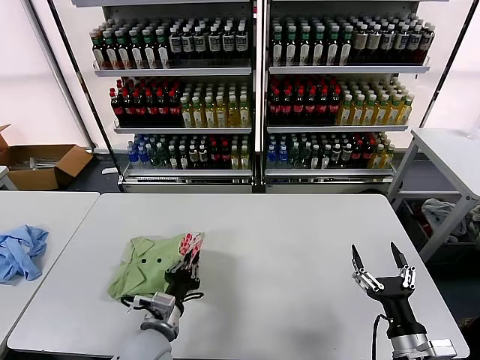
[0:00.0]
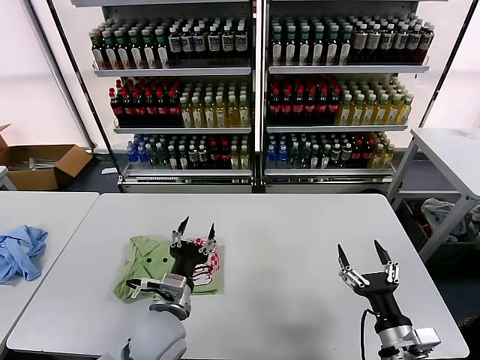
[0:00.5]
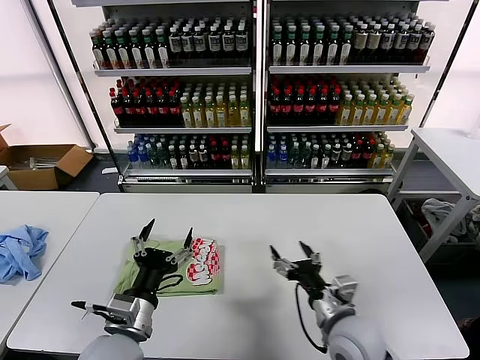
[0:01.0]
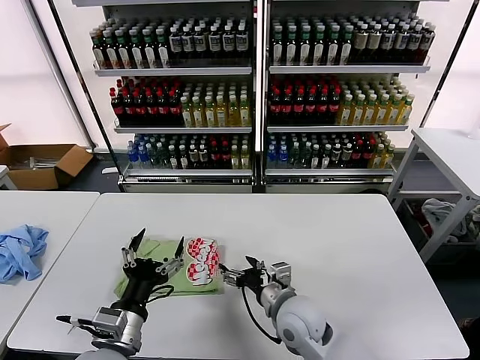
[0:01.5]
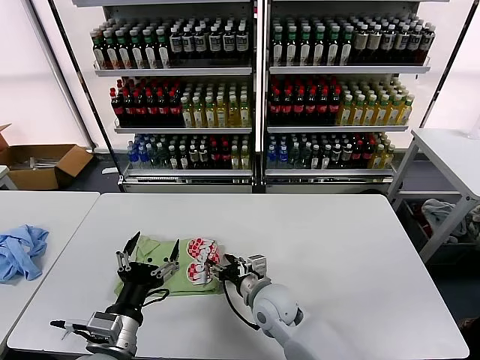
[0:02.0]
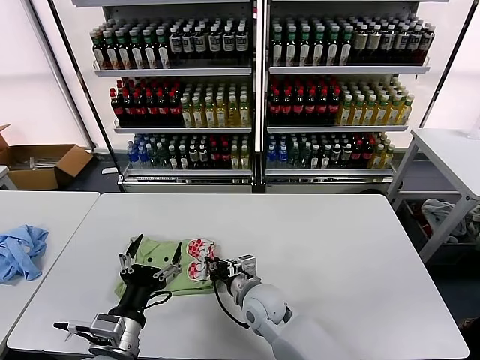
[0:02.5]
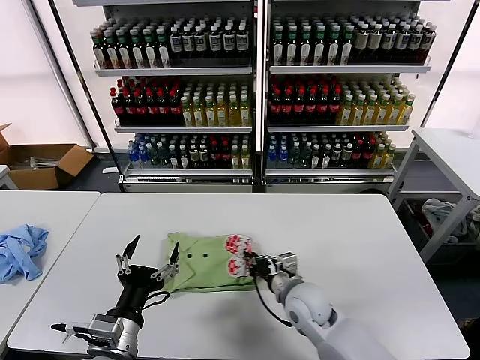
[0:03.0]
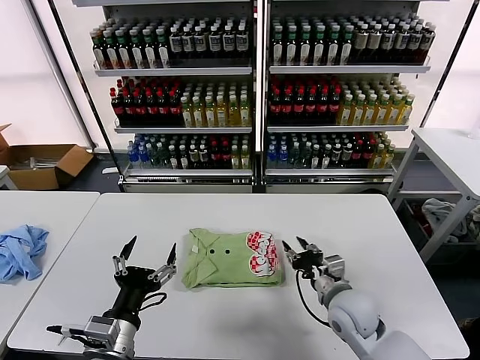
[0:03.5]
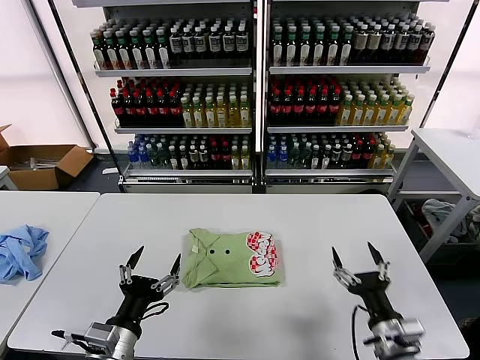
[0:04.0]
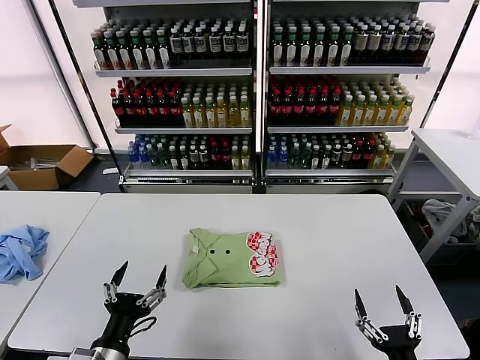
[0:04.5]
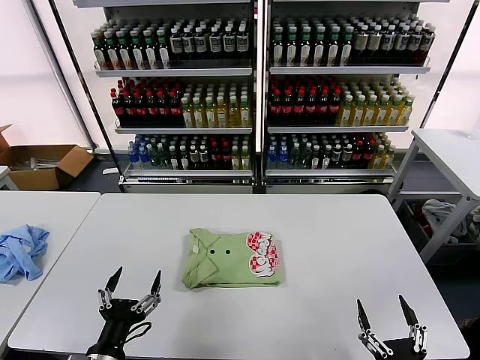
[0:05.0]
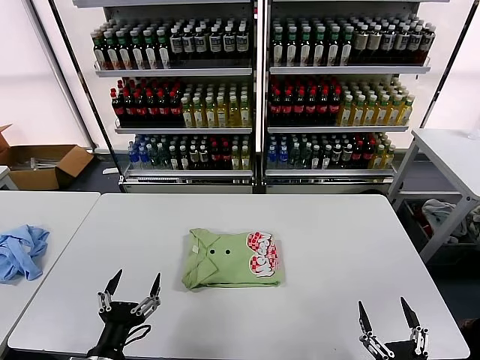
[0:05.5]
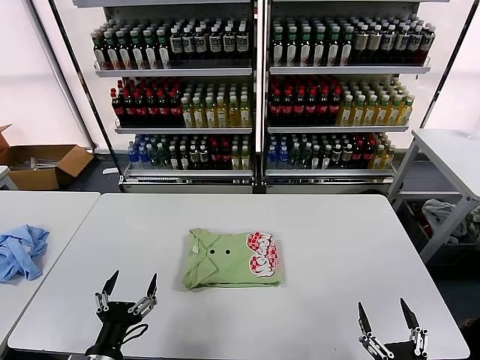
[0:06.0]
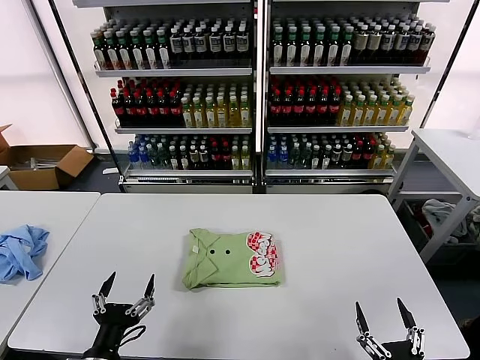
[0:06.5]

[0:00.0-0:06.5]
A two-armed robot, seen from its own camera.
Task of the whole recording: fold and organize the clothes.
Step, 0:00.5 to 0:03.0: Drag the clothes to the center of the table.
0:00.0 to 0:02.0: The right gripper is displaced to the left and forward by roughly 30 cm; the left gripper travels upward and backward by approximately 10 cm, and opens up.
0:02.0 to 0:04.5: The left gripper changes place by some 5 cm, while the right gripper shifts approximately 35 cm backward and to the right, and closes, then reopens.
0:04.5 to 0:06.5: There are only small adjustments of the grippers.

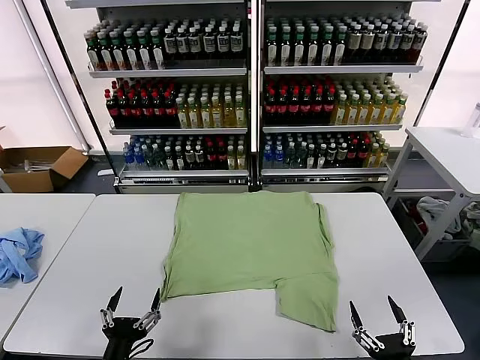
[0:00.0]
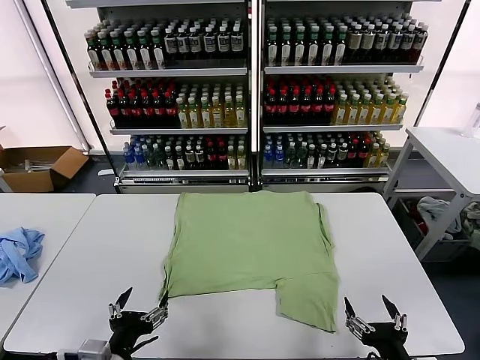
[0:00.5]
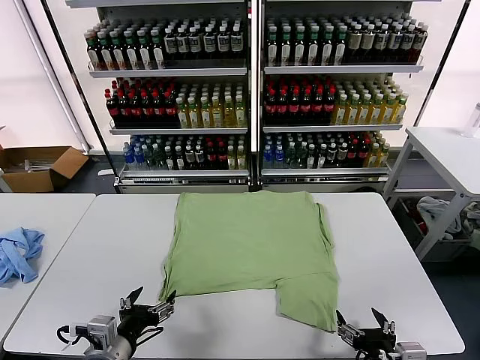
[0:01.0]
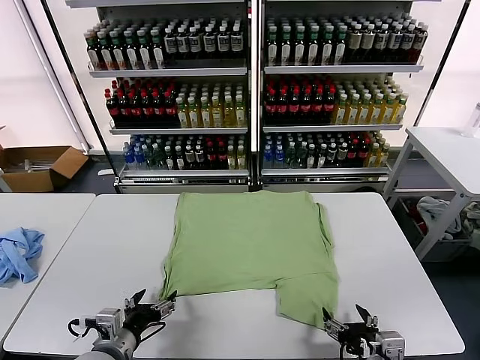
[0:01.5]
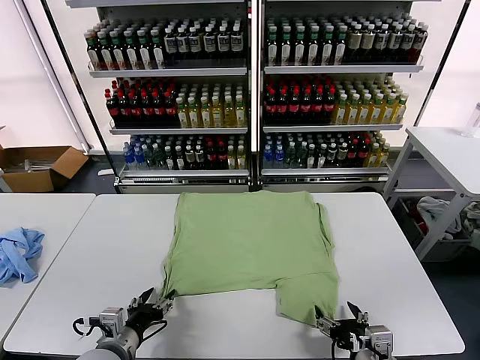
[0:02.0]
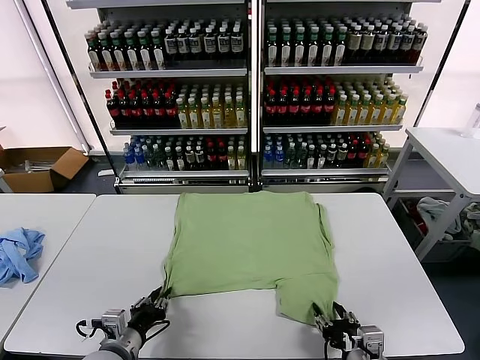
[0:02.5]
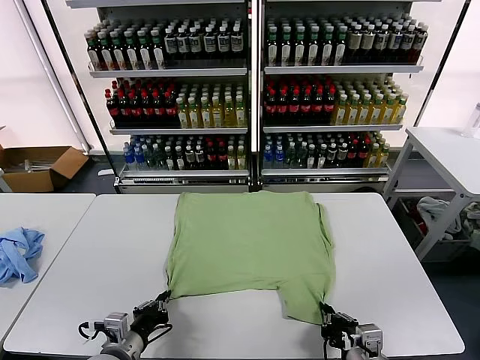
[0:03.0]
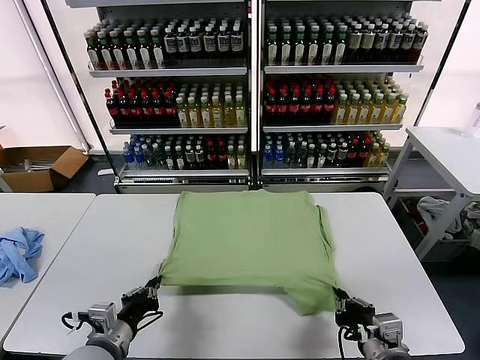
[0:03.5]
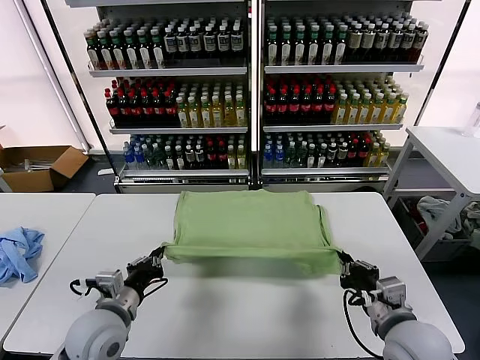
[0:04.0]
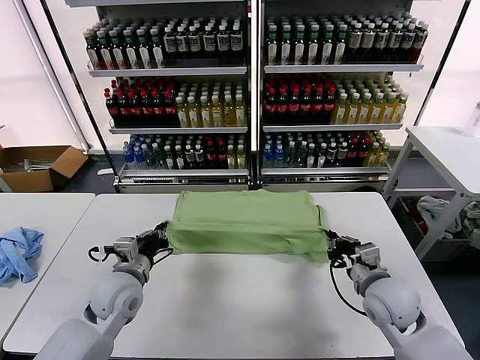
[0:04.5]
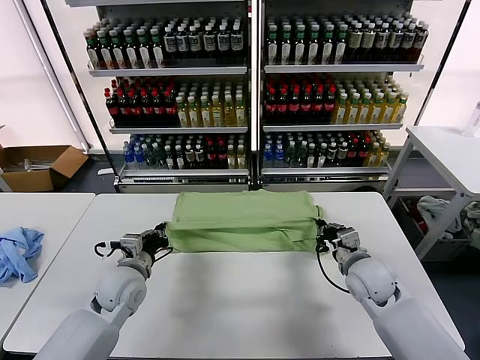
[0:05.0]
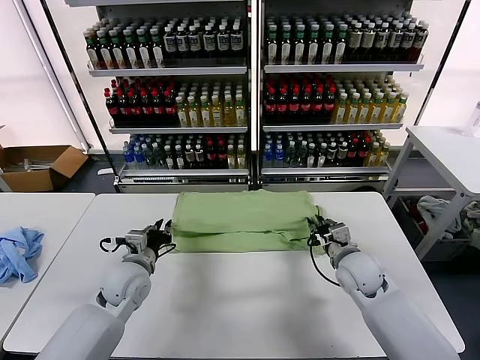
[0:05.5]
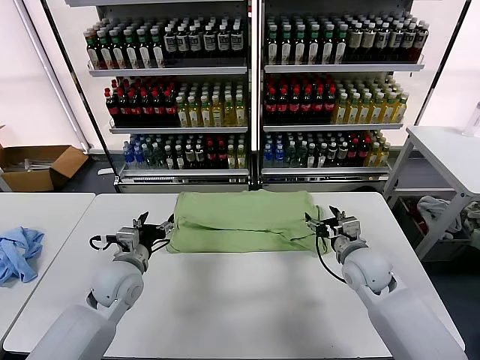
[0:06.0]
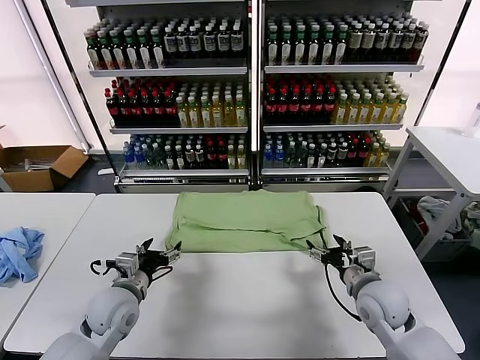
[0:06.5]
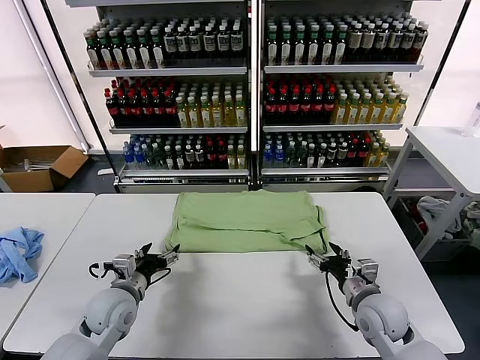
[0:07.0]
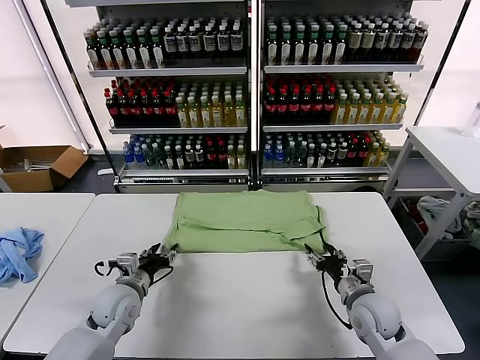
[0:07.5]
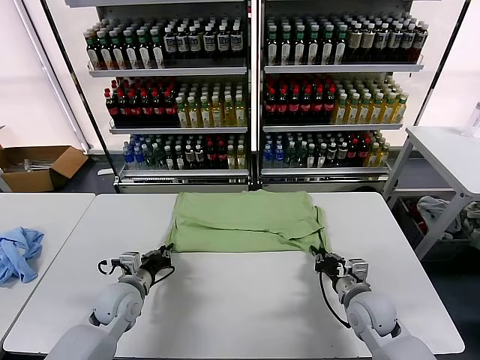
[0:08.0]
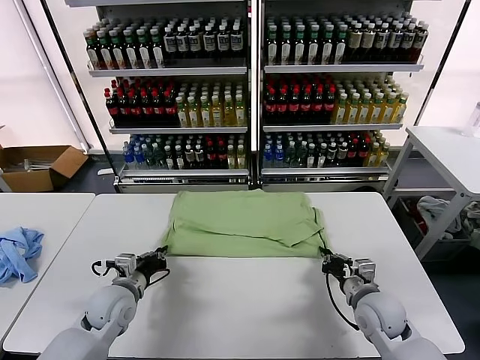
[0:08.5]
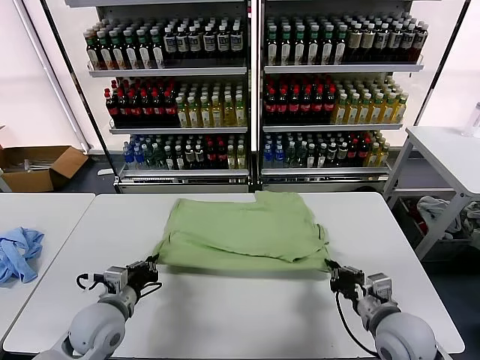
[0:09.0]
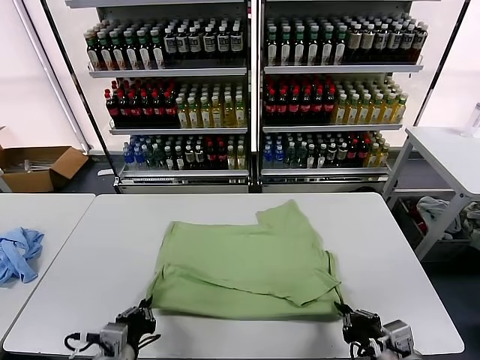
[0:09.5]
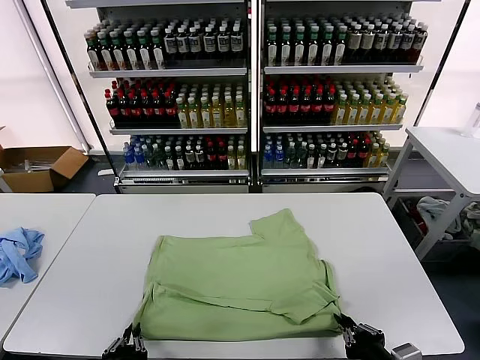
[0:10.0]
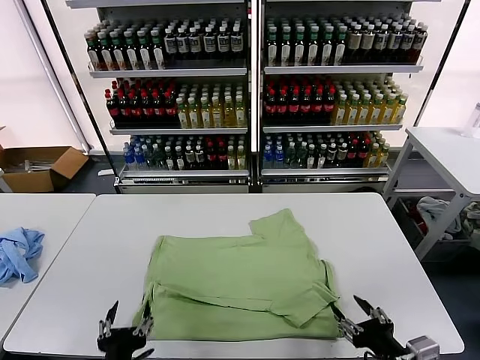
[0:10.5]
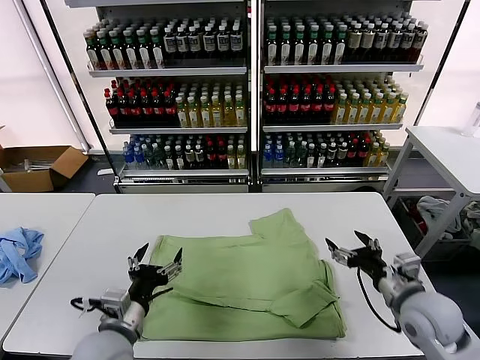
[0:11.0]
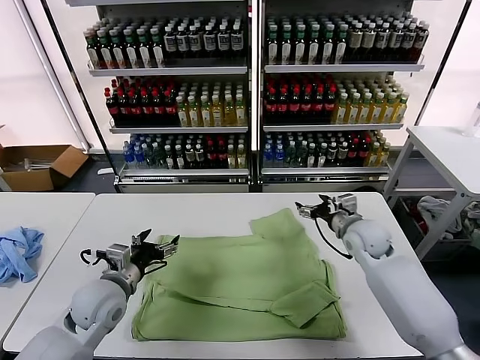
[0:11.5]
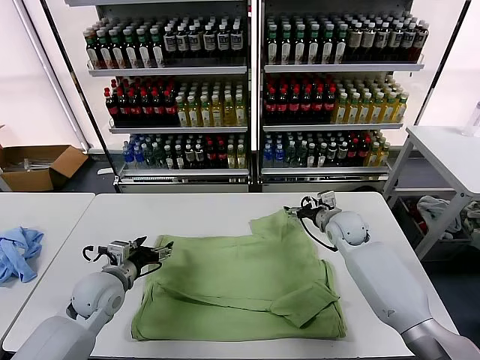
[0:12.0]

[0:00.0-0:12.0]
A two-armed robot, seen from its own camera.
Task of the whole recording: fold and organize the clothes.
Step, 0:00.0 to 0:03.0: use both grippers simultaneously to clamp the lower edge of the clothing fabric.
Step, 0:03.5 to 0:05.5: use both grippers to drag the lower edge of the fabric forward and fold it over the upper edge.
Step, 0:06.0 to 0:10.0: Drag the clothes downward with both gripper.
0:02.0 to 0:04.0: Both grippers move forward and upward, some 10 cm. The right gripper closes; the left gripper closes.
0:04.0 to 0:06.0: The two grippers go about 10 cm forward. The right gripper opens up. Meanwhile the left gripper opens.
0:06.0 to 0:08.0: The two grippers go approximately 5 cm downward. The right gripper closes its fingers. The left gripper closes up.
0:08.0 to 0:10.0: The two grippers go approximately 25 cm backward.
0:10.0 to 0:12.0: The left gripper heads forward, covering roughly 25 cm, and opens its fingers. The right gripper is displaced forward by about 40 cm, and opens up.

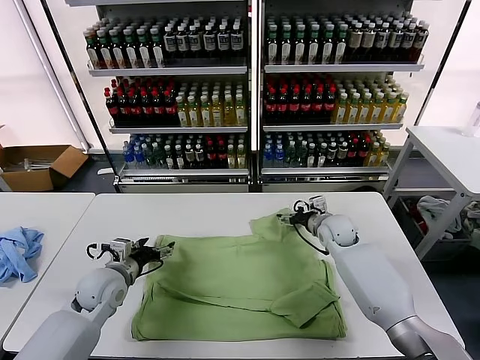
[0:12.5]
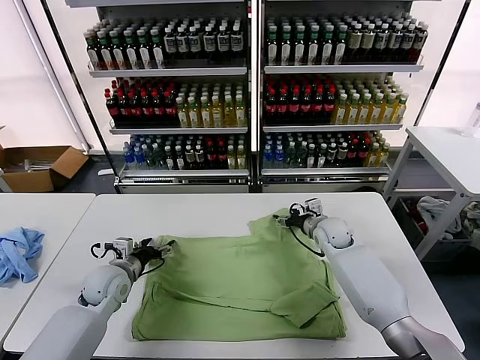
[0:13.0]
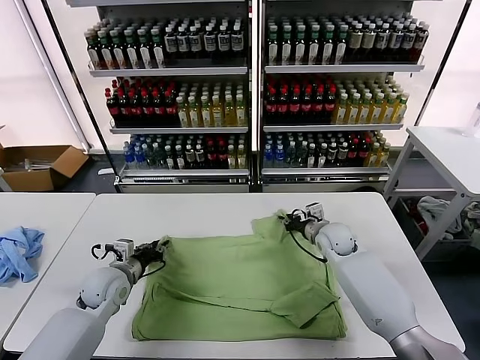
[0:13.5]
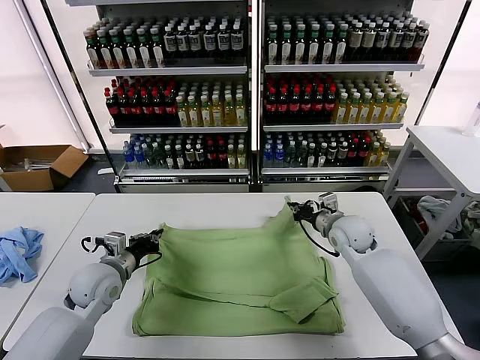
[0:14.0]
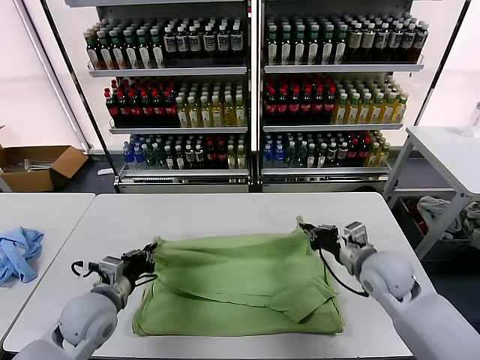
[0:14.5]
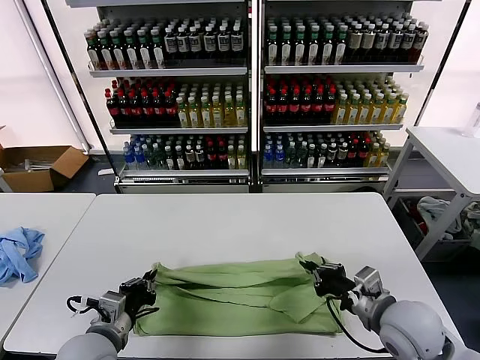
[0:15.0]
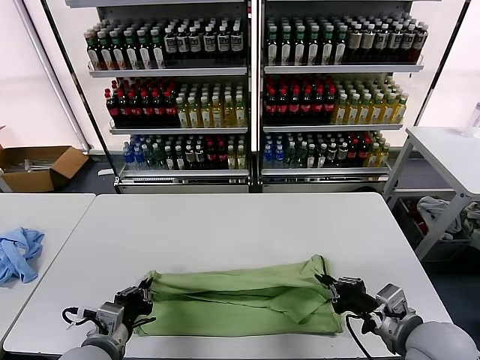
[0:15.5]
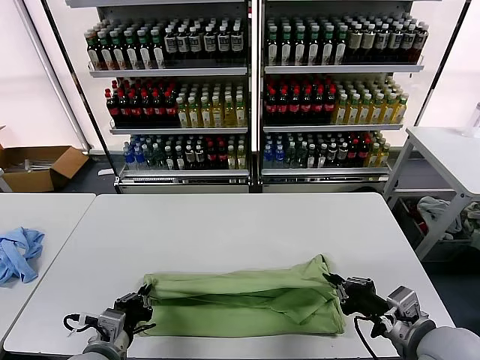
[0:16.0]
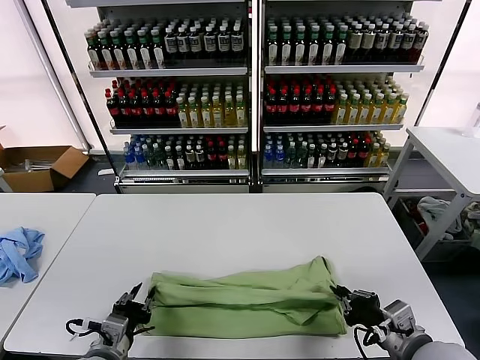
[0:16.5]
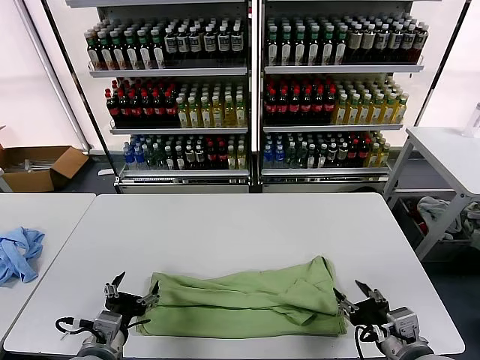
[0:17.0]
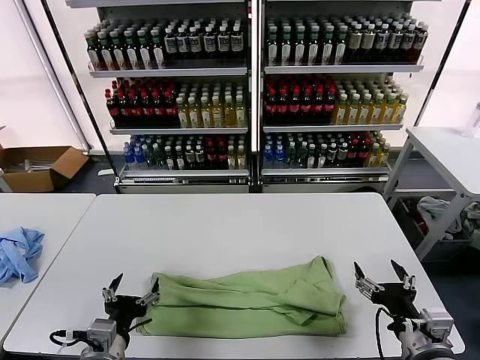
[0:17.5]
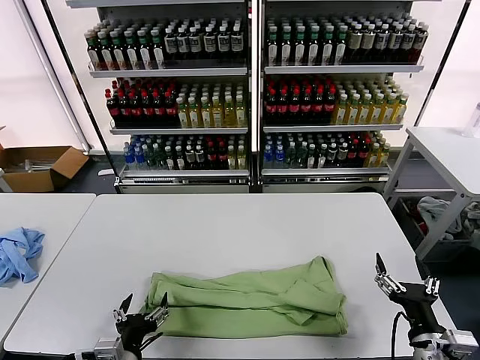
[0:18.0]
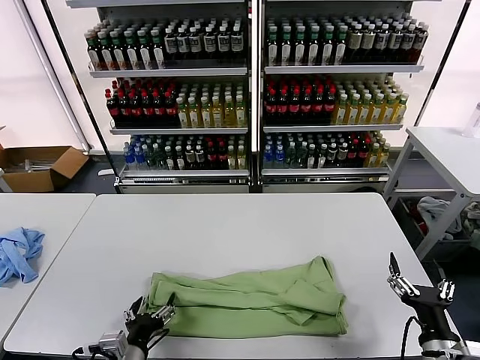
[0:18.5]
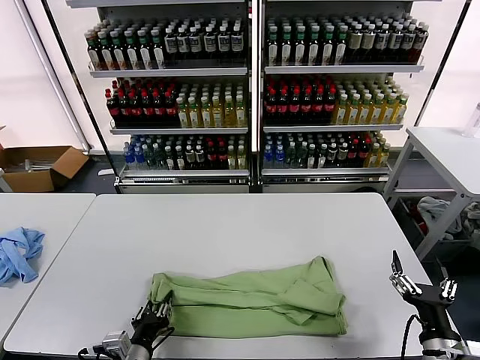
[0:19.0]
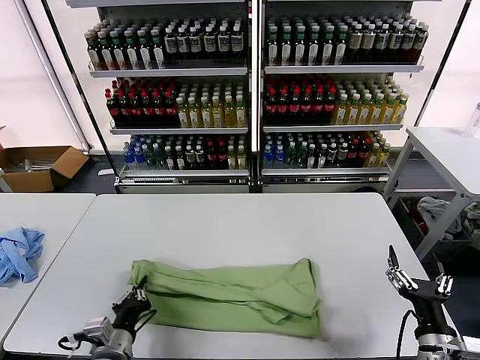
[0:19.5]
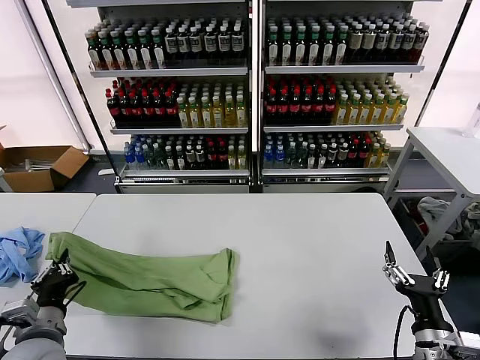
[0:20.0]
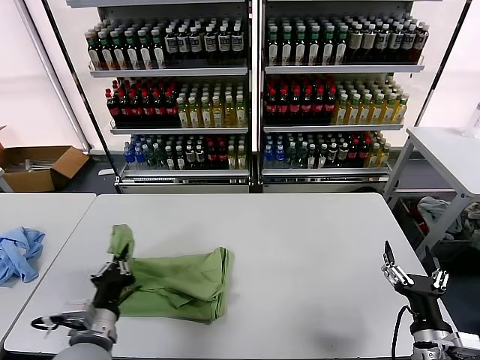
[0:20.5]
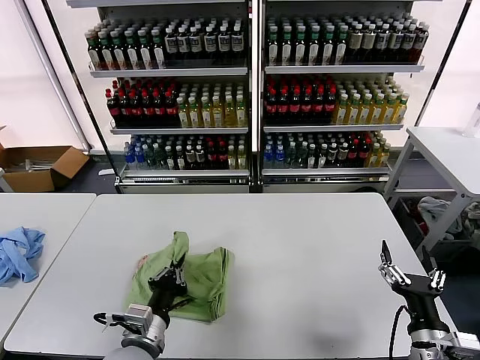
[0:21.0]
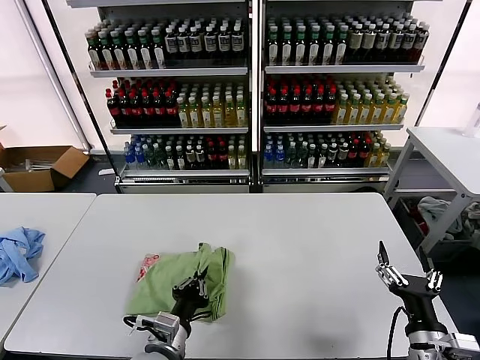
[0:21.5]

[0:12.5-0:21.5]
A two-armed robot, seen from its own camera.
Task of the whole recording: fold and organize the clothes.
Step, 0:14.0 to 0:16.5: use both grippers to drag the upper edge of the fabric backward and fold it over the lower edge.
Step, 0:17.0 to 0:19.0: use the left gripper to clamp the left edge of the fabric.
0:12.5 to 0:14.5: The left gripper shifts about 5 cm backward, and closes up; the right gripper moves backward, some 20 cm, and closes.
0:14.5 to 0:17.0: The left gripper travels backward by roughly 10 cm, and opens, while the right gripper travels backward by about 20 cm, and opens its fingers.
0:17.0 to 0:19.5: The right gripper moves about 5 cm, while the left gripper goes some 5 cm downward, and closes its fingers.
0:19.5 to 0:21.5: The left gripper moves to the right, about 10 cm.
